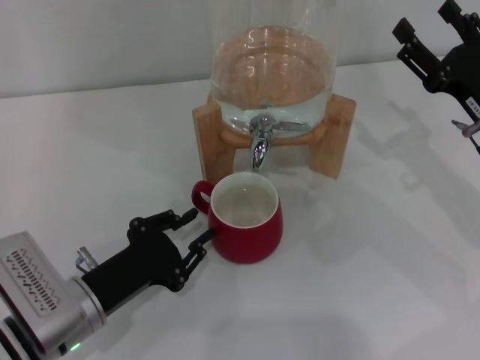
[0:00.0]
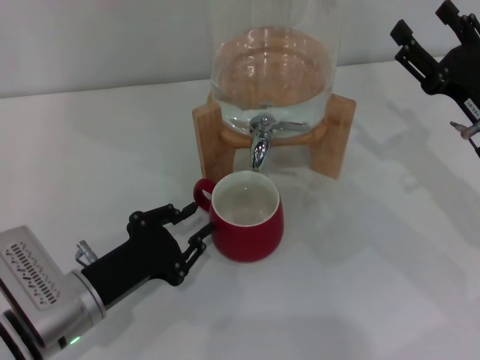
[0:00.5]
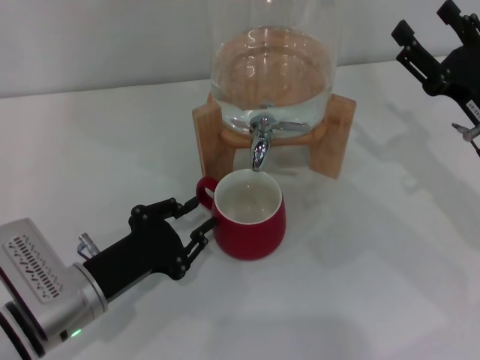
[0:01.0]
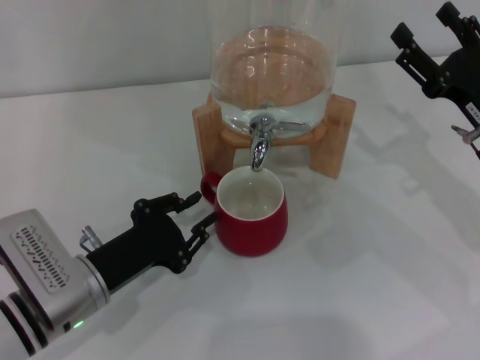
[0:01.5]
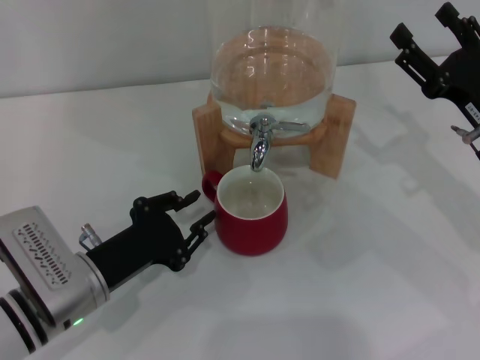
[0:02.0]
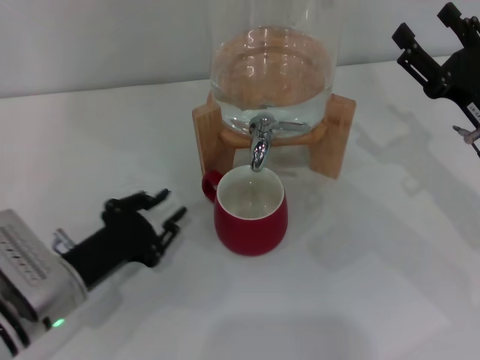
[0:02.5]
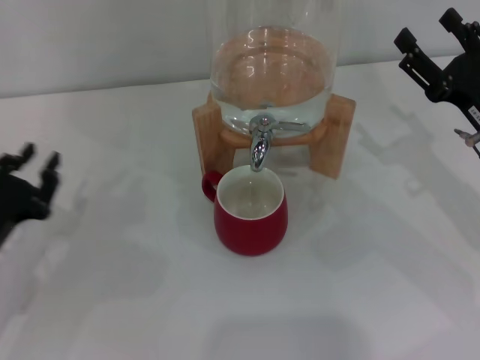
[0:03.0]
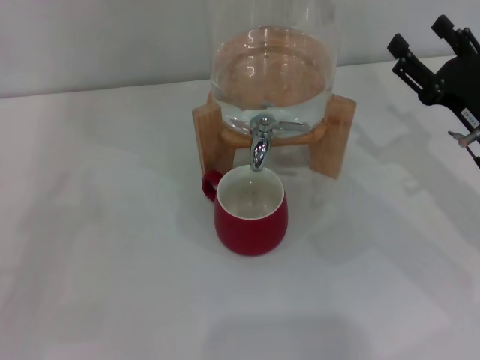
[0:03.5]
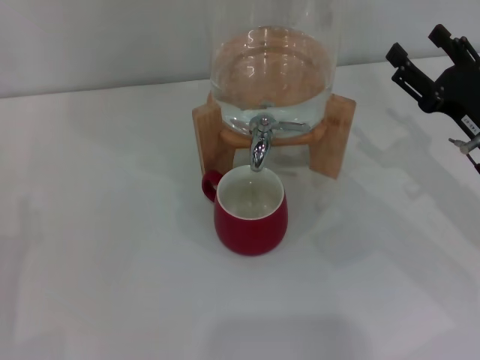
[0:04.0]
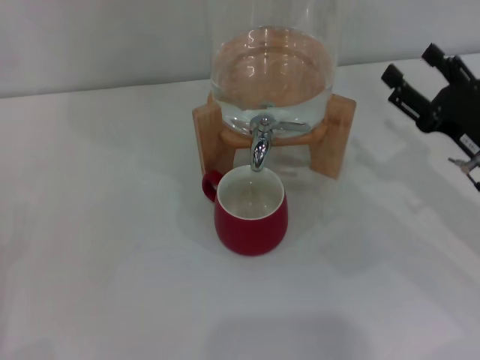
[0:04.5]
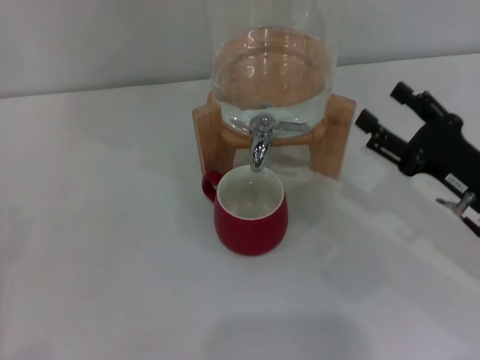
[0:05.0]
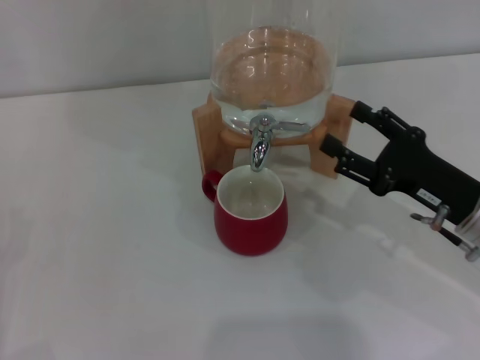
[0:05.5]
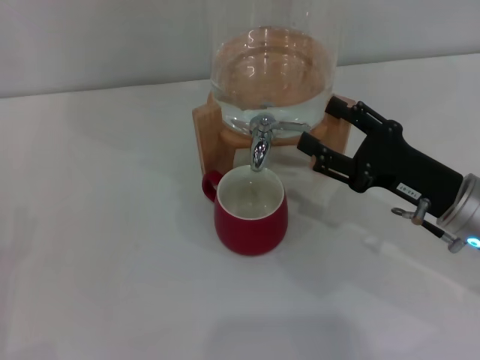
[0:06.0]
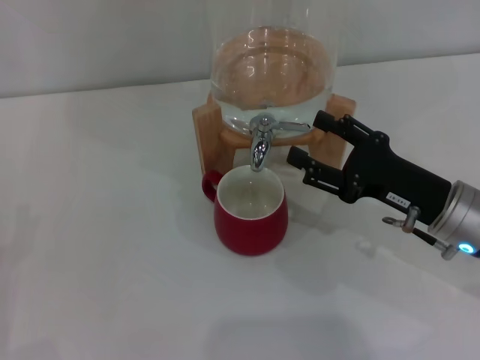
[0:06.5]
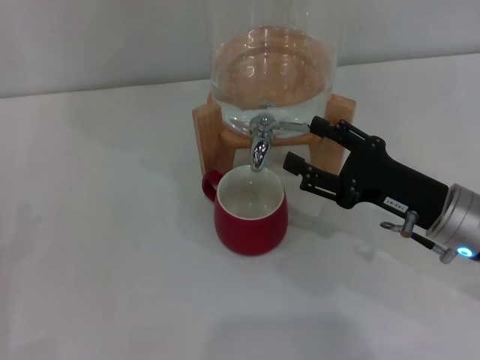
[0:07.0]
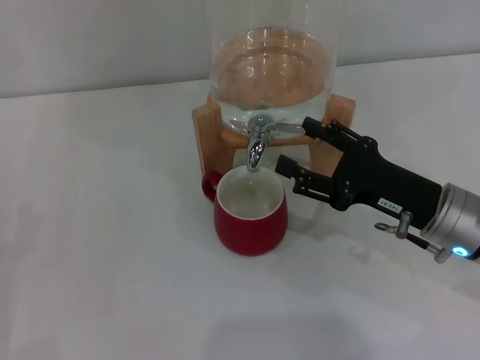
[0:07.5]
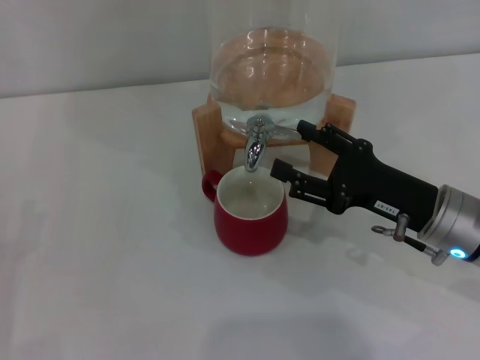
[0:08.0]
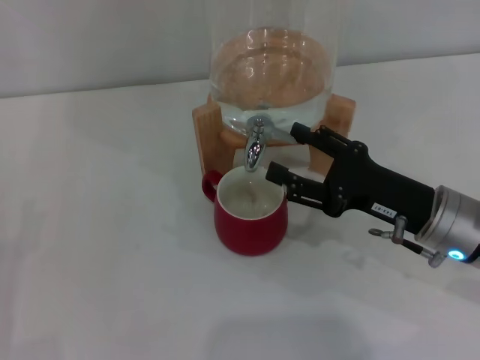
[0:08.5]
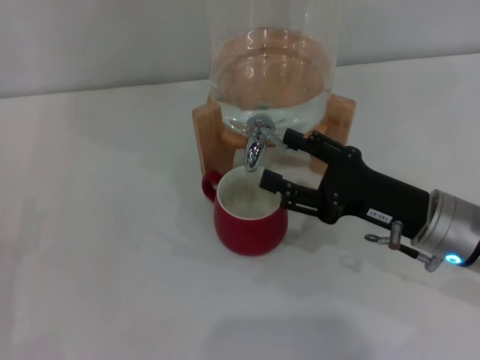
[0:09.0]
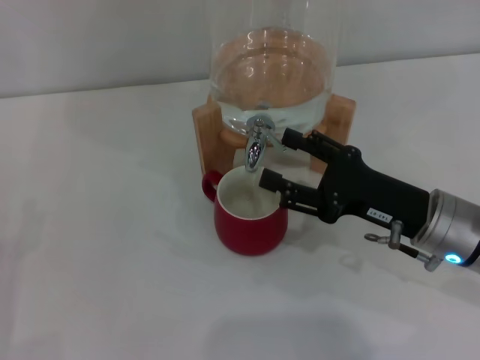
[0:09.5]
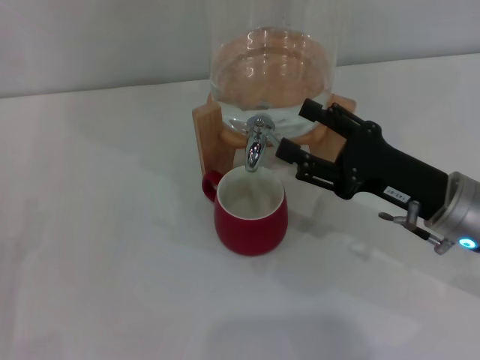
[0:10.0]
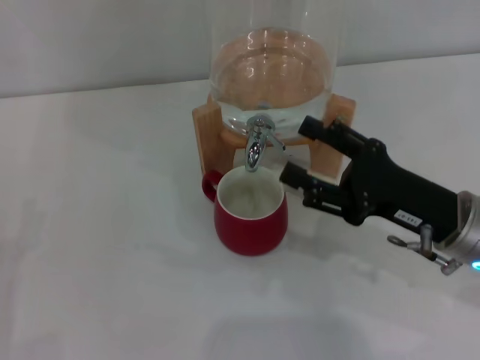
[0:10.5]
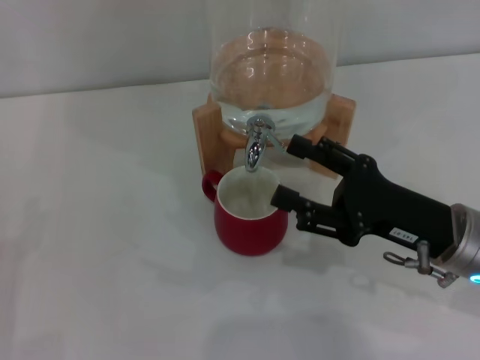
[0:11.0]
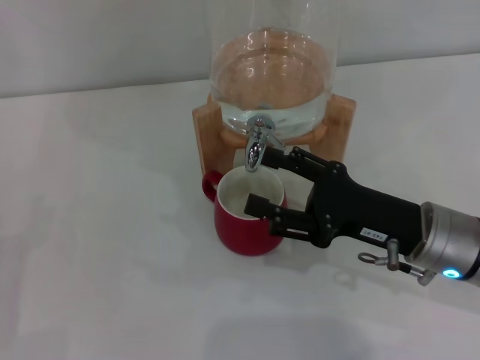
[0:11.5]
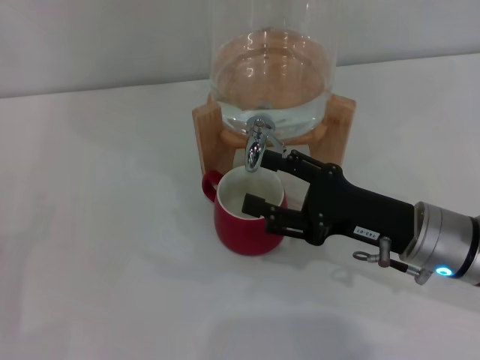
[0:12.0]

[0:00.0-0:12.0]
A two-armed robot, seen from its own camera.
Task of the whole recording: the left gripper pick up the red cup and place it horizontally under the faucet, the right gripper turn on the faucet to fill the cup, and then turn off the faucet.
Step, 0:00.0 to 0:02.0: Move the cup beneath the water dispenser nozzle with the left gripper.
Step, 0:03.0 to 0:10.5: Open the dispenser valve and fill the cup with water with the right gripper.
0:00.0 to 0:02.0: The grippers make only small movements.
0:02.0 to 0:04.0: The left gripper travels to the left by about 20 cm.
0:04.0 to 0:06.0: The right gripper changes place by approximately 5 cm.
0:06.0 to 0:12.0: The grippers stay close to where they were, moving slightly.

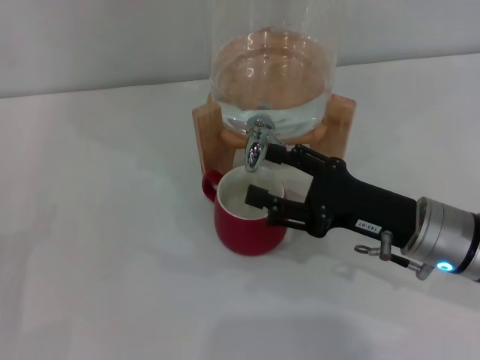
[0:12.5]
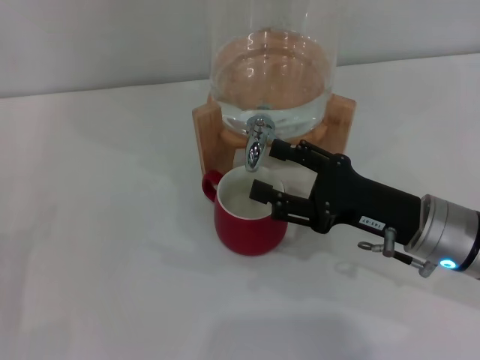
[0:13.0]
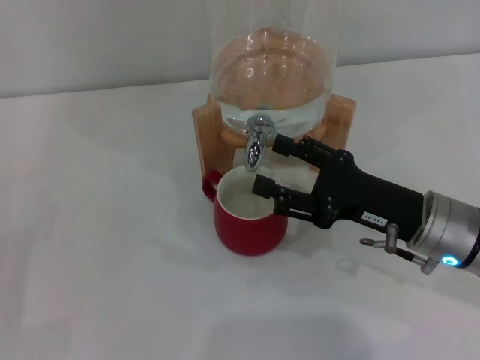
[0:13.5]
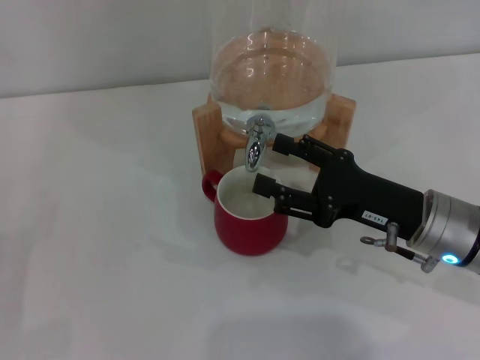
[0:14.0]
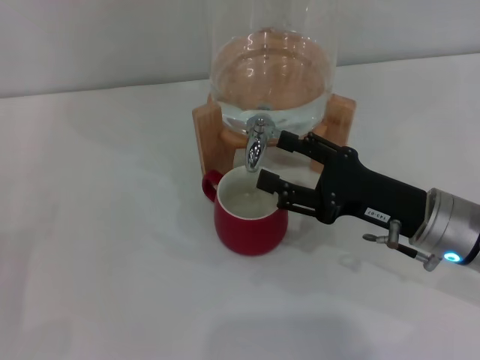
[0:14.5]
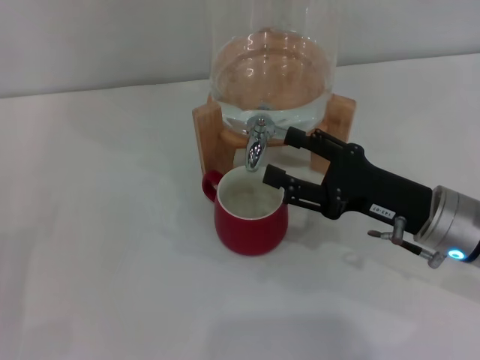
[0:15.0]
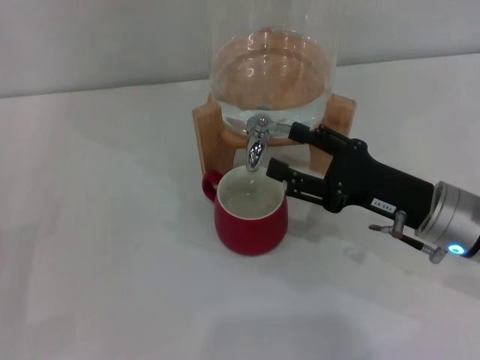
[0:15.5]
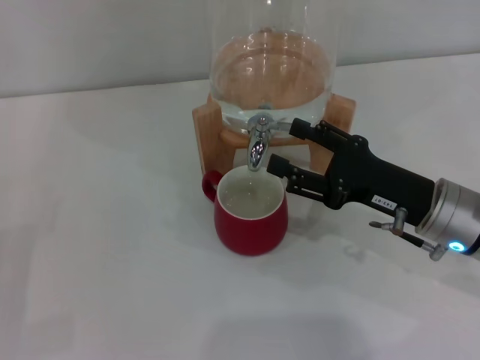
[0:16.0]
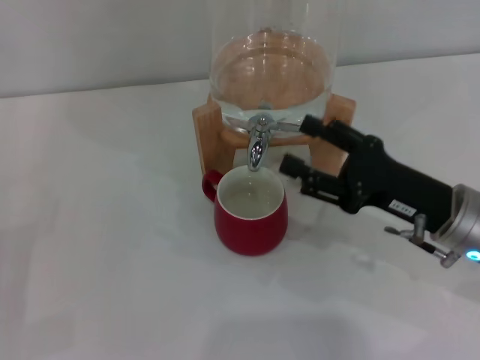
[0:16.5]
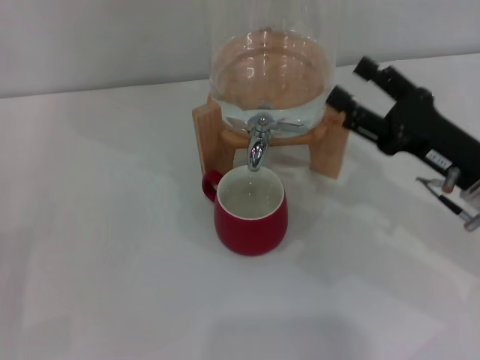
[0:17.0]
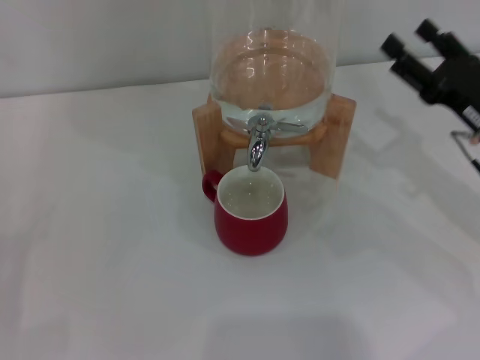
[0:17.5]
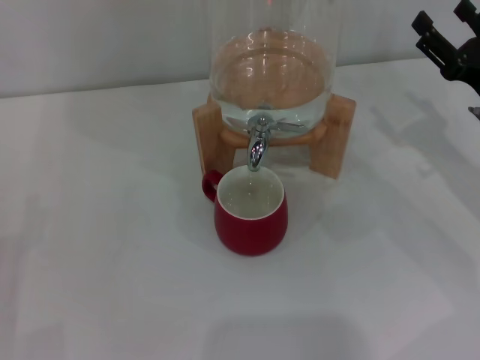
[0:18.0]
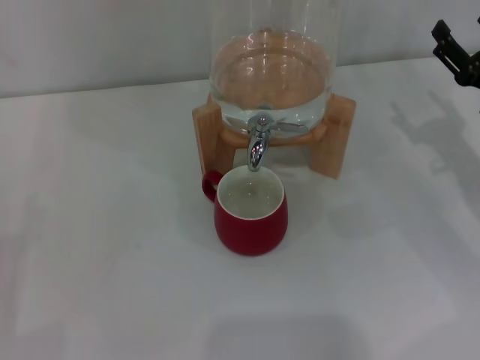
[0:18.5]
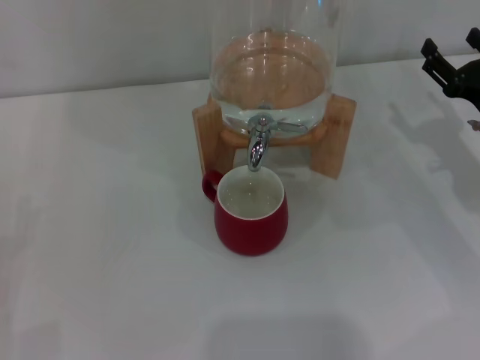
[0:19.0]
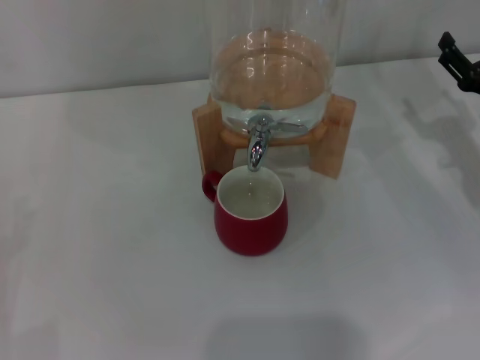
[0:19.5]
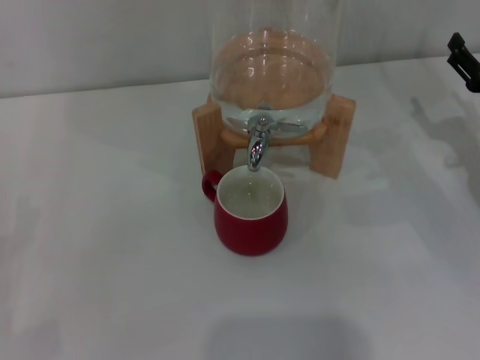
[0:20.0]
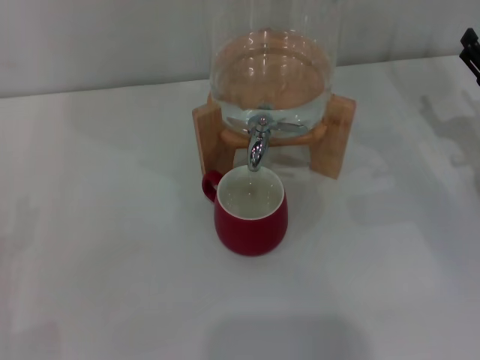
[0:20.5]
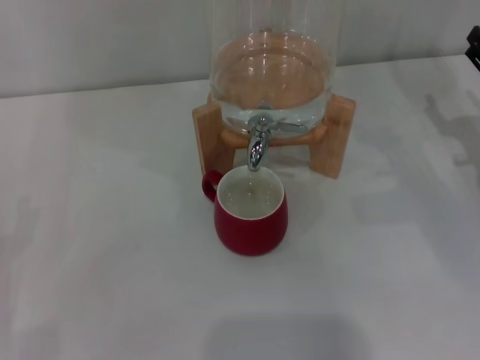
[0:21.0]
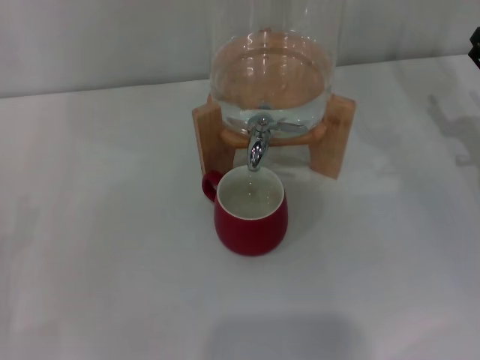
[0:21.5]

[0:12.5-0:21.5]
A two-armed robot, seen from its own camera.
Task of the whole recording: the left gripper pick up the red cup and place it horizontally under the faucet, the right gripper turn on the faucet to fill the cup, and then turn off the faucet.
Step, 0:12.5 to 0:16.5: Close the dispenser valve with the right gripper.
0:12.5 to 0:14.5: Neither gripper changes place.
0:14.5 to 0:17.0: The grippers make only small movements.
0:17.0 to 0:19.5: The right gripper shifts roughly 5 cm to the right.
0:19.5 to 0:21.5: The grippers make only small movements.
